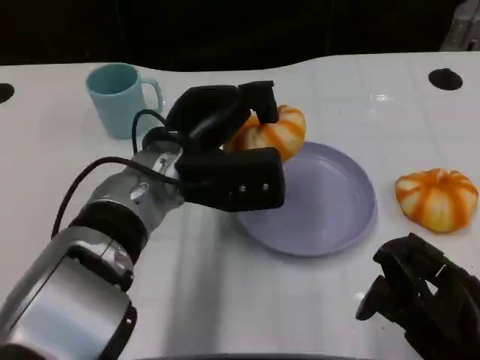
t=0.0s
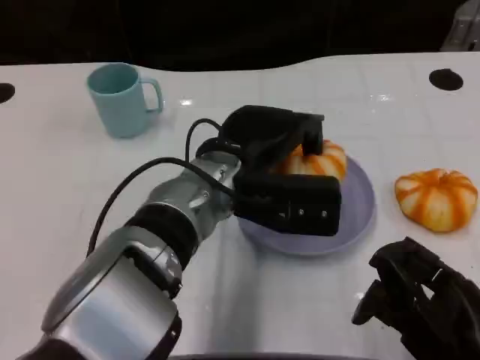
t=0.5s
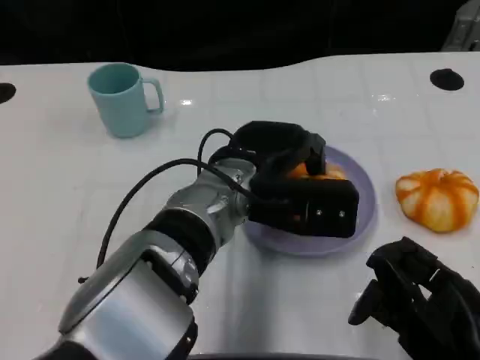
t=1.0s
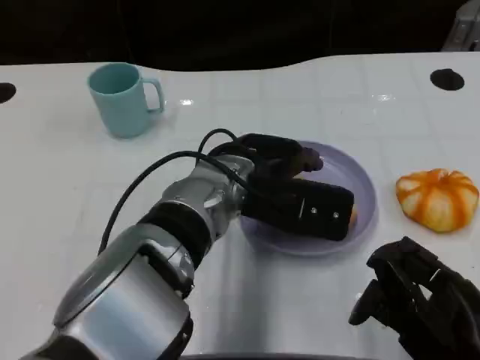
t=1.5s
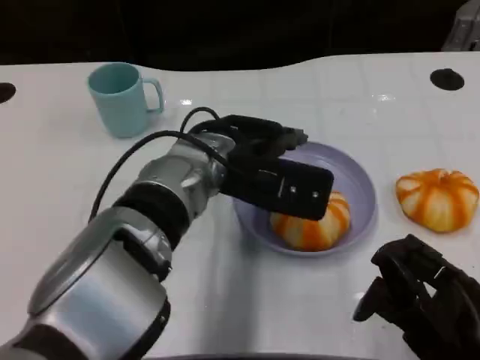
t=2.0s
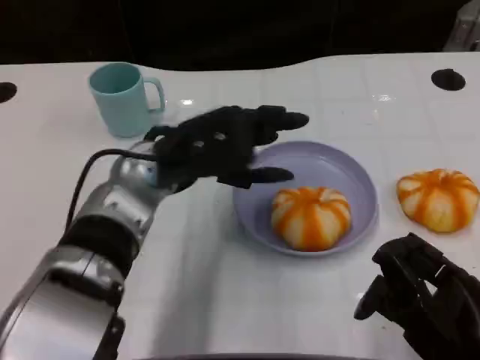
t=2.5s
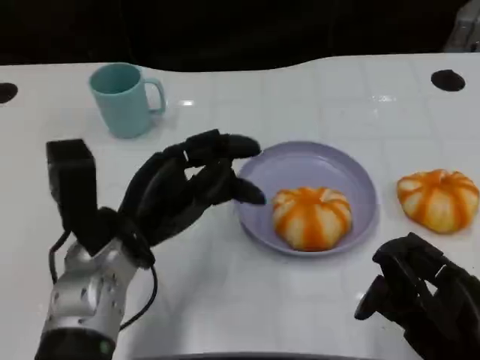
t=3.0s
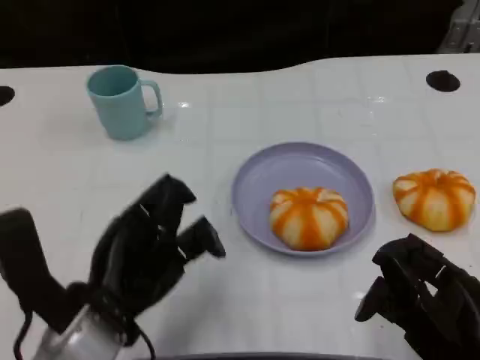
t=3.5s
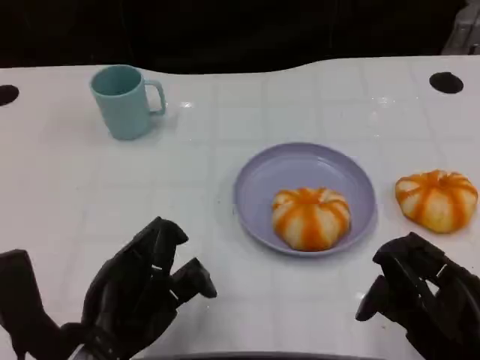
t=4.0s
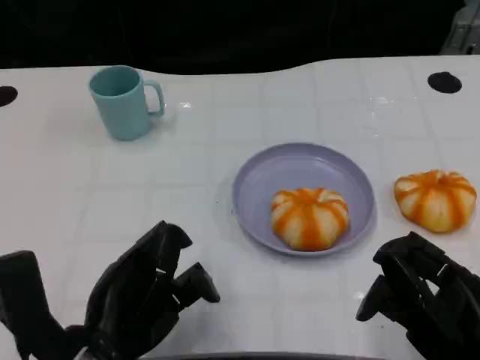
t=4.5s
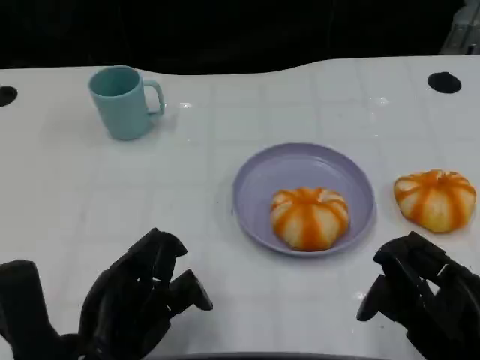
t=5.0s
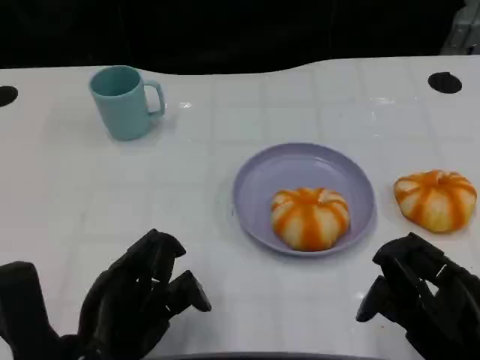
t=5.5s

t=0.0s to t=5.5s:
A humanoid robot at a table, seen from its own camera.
Task of the whole recording: Grasp the bread from the table and place it into the plate.
t=2.0s to t=3.5s: The left hand shifts roughly 20 cm backward, to the left and downward.
t=3.5s to t=5.5s: The hands move only a little.
